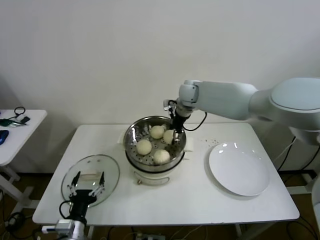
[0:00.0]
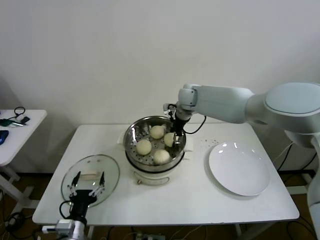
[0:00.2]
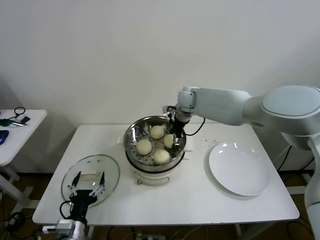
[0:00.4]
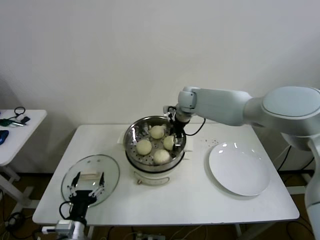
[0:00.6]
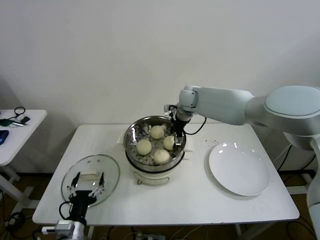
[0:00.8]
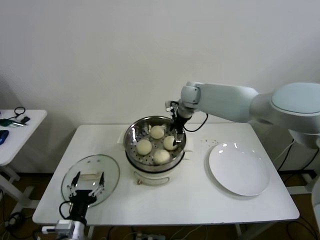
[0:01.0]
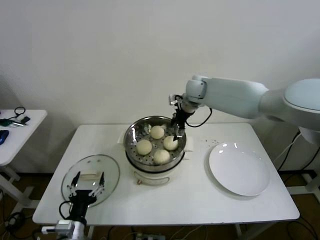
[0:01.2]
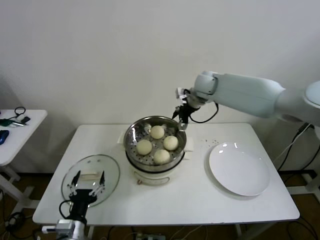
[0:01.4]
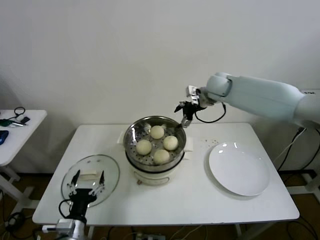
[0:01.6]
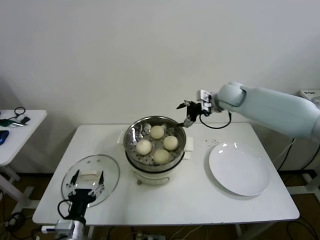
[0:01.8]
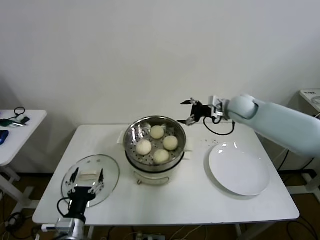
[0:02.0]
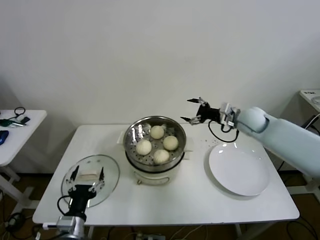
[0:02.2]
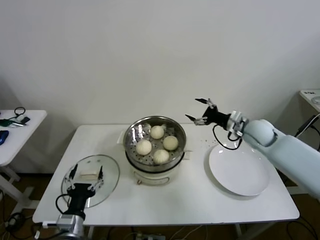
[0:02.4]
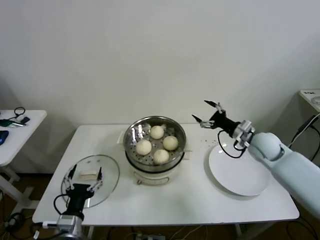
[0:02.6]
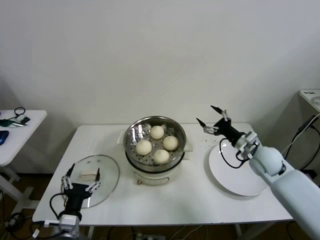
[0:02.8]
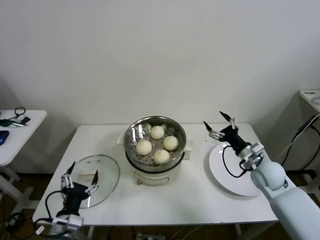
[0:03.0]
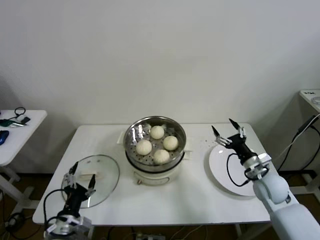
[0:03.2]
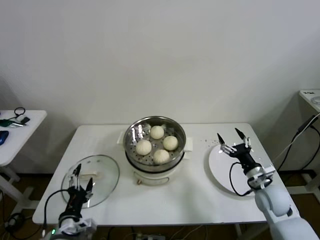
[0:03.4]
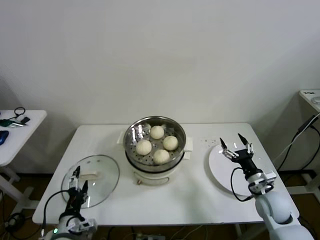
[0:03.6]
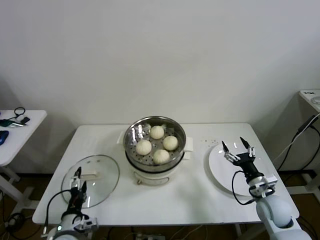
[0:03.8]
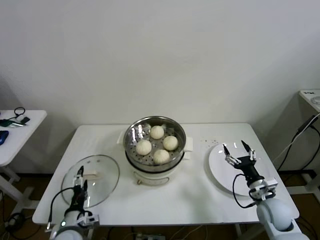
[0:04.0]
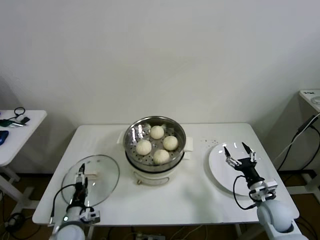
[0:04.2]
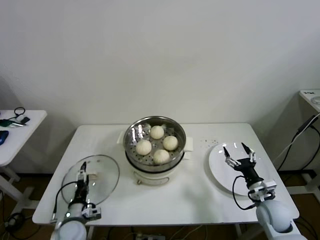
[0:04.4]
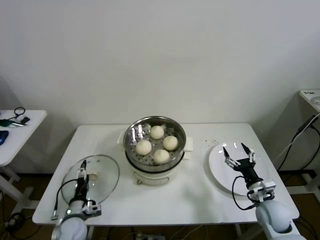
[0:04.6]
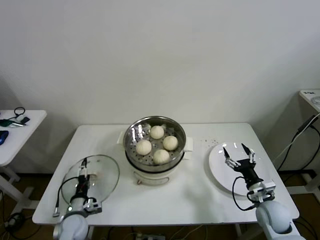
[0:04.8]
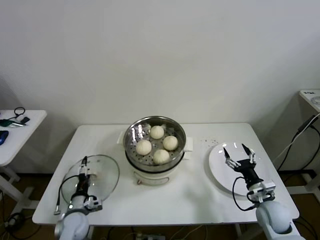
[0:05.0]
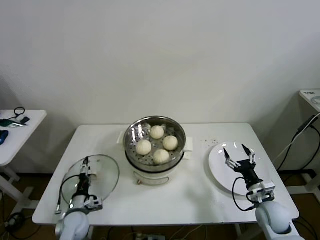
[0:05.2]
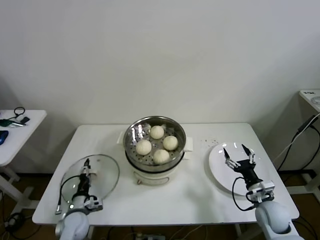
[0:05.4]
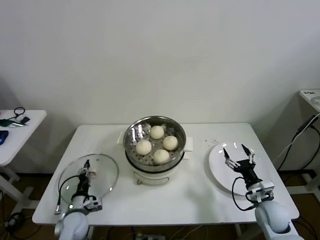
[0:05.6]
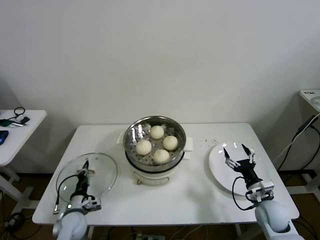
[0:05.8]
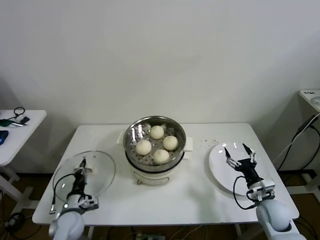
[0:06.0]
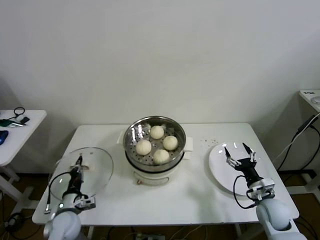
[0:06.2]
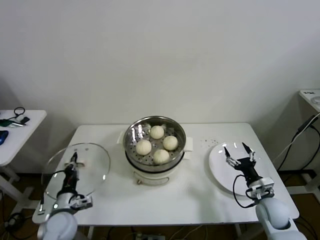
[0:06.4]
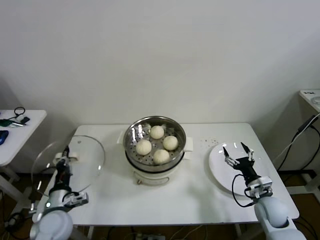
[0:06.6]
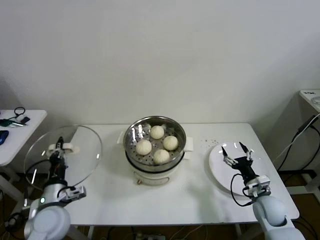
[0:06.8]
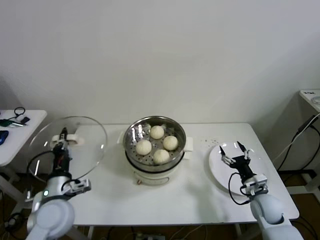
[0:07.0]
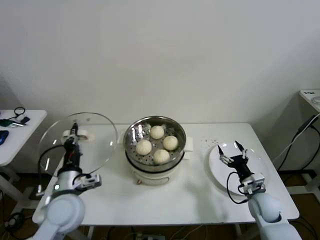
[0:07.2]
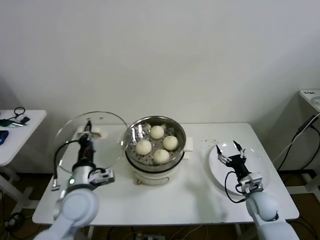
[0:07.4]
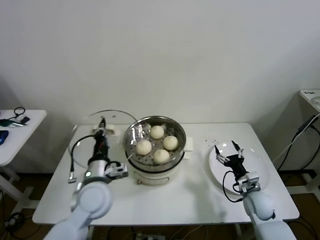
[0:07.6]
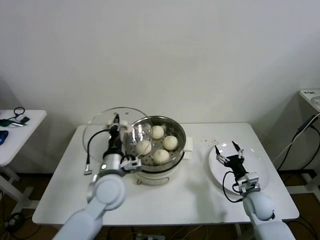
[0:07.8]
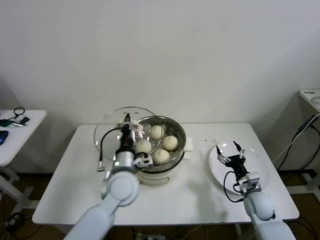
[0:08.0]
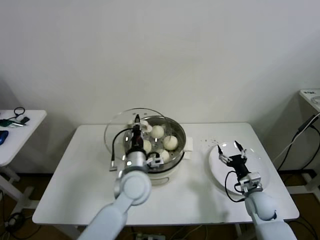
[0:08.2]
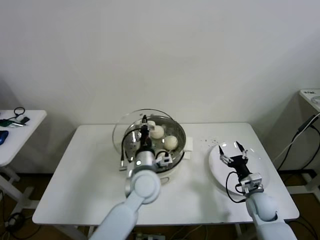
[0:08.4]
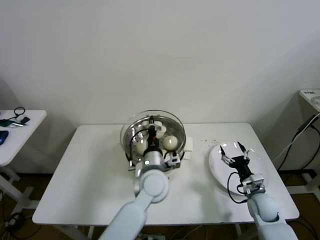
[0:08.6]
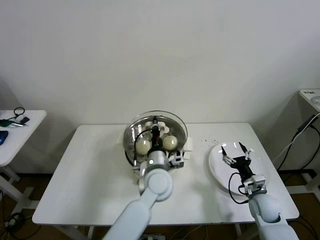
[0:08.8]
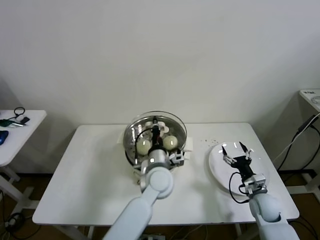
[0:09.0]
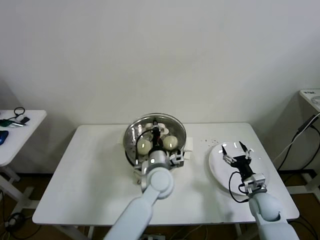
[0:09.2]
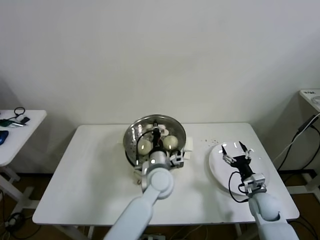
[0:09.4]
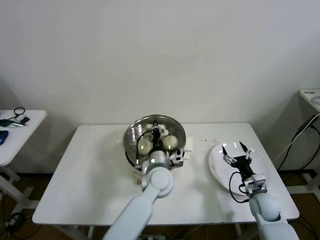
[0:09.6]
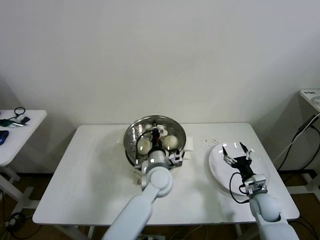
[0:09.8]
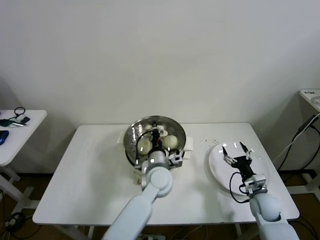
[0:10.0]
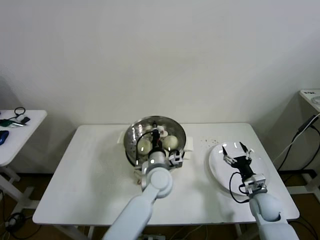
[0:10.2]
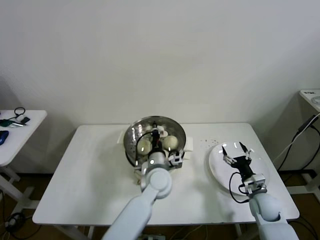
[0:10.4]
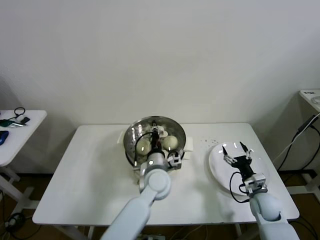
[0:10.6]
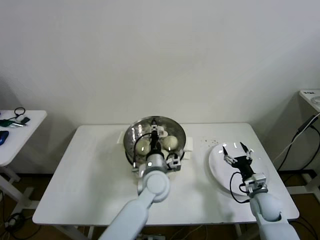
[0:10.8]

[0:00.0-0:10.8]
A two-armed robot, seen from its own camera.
Step, 0:00.8 to 0:05.6: Grasp the pot lid with left gripper.
Step, 0:06.0 to 0:10.6: Place the pot lid on the steamer with left gripper.
0:00.0 to 0:01.6: The right gripper shifts some 10 cm to the right, and opens its fingers.
0:01.6 to 0:03.0: The right gripper goes approximately 35 cm backward, downward and to the right.
0:03.0 to 0:04.6: The right gripper is displaced backward and downward by approximately 15 cm, while the left gripper moves downward and forward, roughly 15 cm.
0:04.6 to 0:06.2: The left gripper closes up.
0:06.2 to 0:07.8: The left gripper shifts some 25 cm upward and to the right. Meanwhile the right gripper ends up about 5 cm from where it was.
0:07.8 to 0:09.2: The left gripper moves to the right, approximately 15 cm.
0:09.2 to 0:10.8: The left gripper opens its fingers.

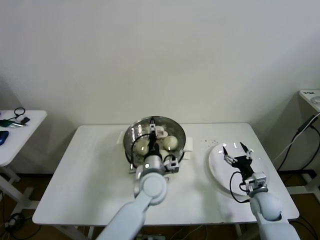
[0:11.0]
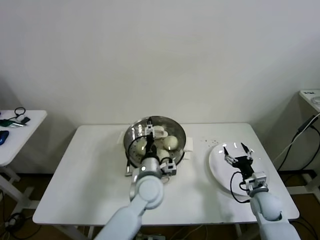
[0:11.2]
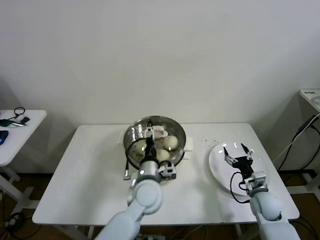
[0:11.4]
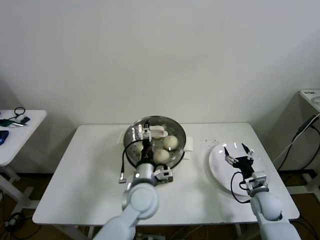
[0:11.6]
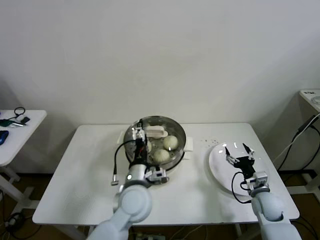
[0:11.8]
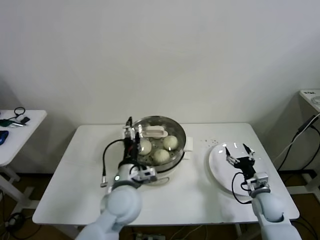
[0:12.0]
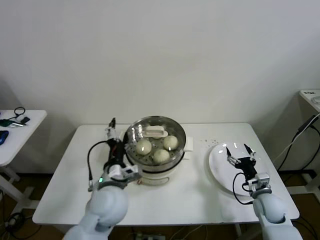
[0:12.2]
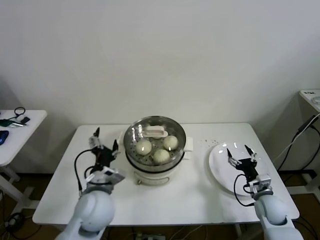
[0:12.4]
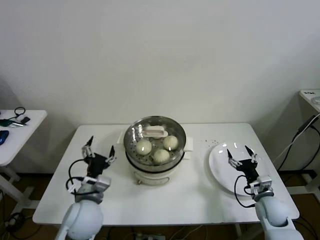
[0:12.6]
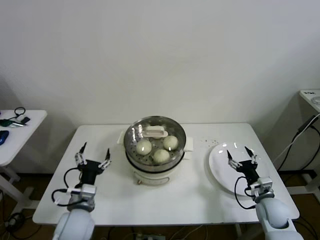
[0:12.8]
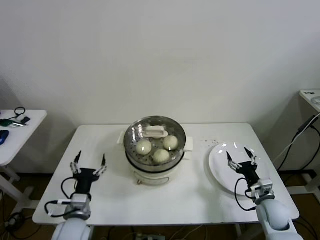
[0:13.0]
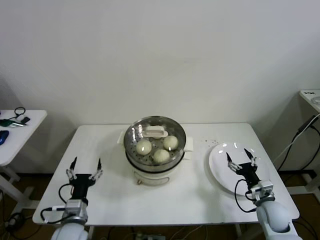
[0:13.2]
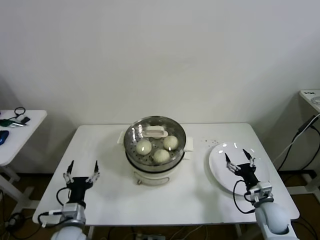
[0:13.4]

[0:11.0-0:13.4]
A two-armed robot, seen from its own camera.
0:11.0 to 0:12.2: The left gripper travels to the left, backward and upward by some 15 cm.
0:12.2 to 0:13.4: The left gripper moves to the left, downward and backward, about 20 cm.
